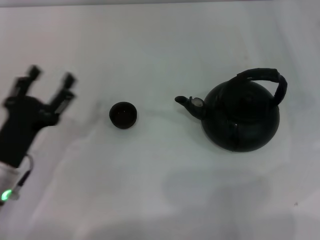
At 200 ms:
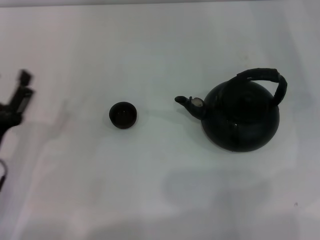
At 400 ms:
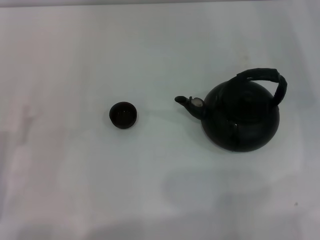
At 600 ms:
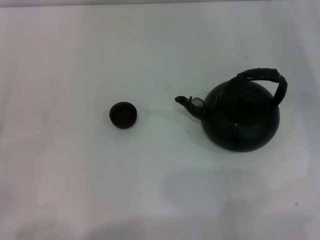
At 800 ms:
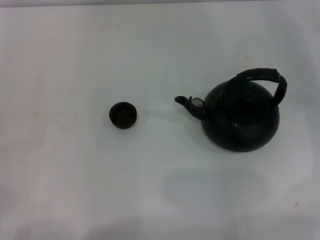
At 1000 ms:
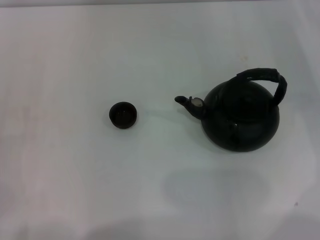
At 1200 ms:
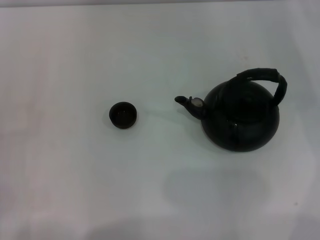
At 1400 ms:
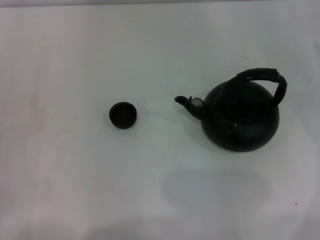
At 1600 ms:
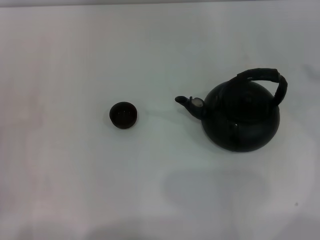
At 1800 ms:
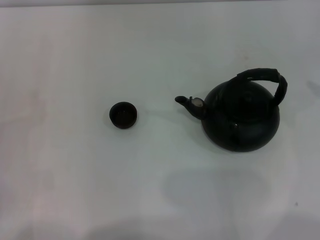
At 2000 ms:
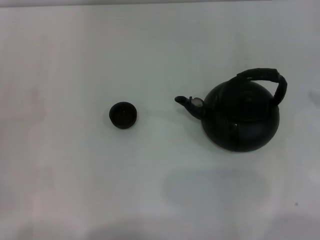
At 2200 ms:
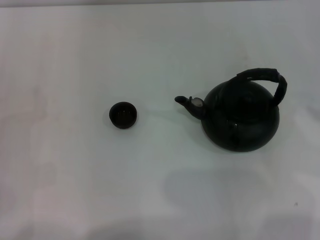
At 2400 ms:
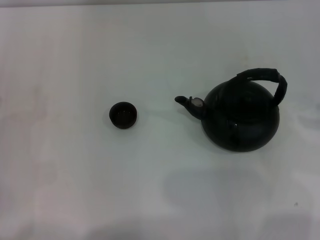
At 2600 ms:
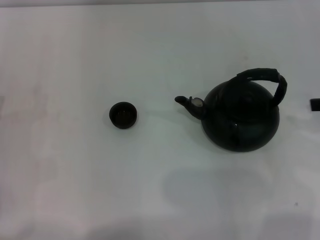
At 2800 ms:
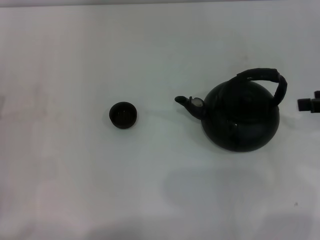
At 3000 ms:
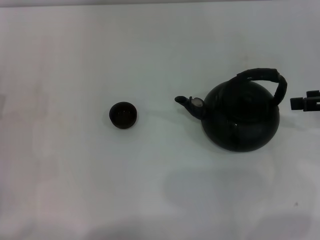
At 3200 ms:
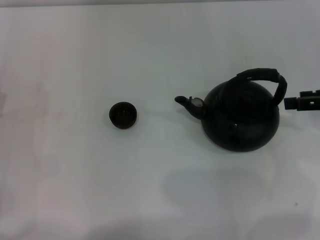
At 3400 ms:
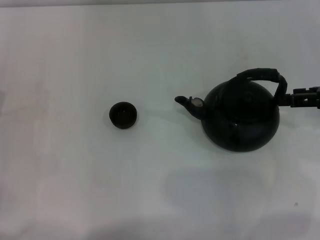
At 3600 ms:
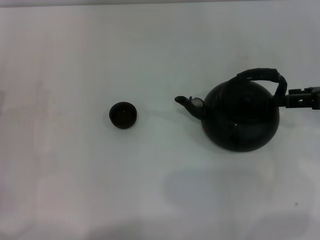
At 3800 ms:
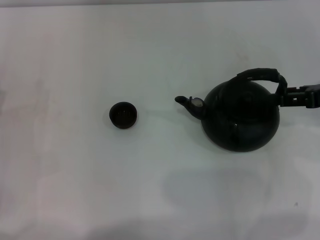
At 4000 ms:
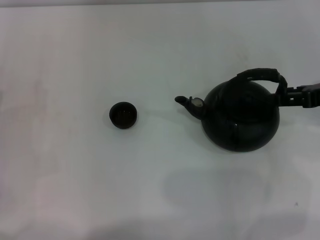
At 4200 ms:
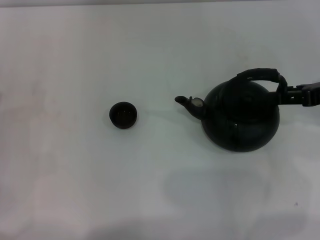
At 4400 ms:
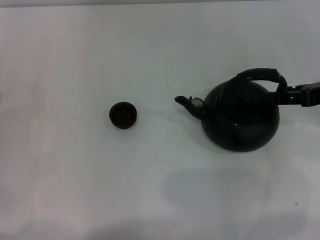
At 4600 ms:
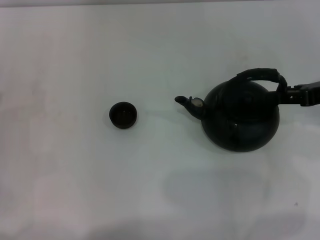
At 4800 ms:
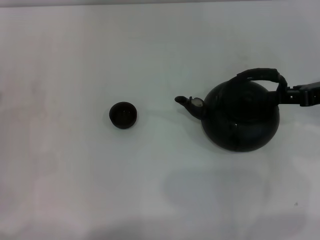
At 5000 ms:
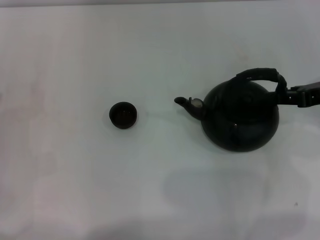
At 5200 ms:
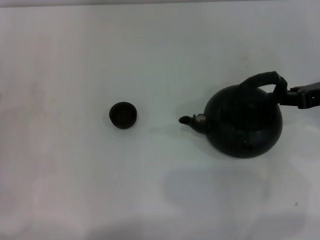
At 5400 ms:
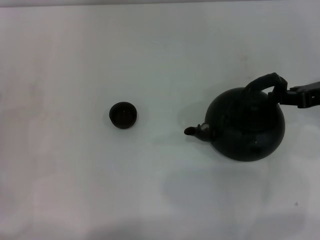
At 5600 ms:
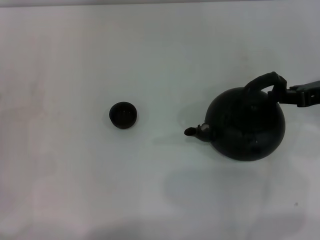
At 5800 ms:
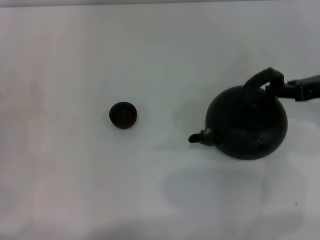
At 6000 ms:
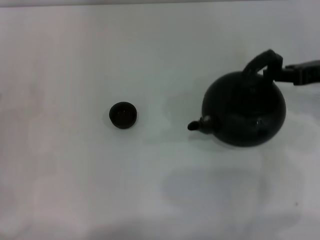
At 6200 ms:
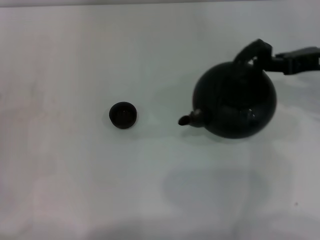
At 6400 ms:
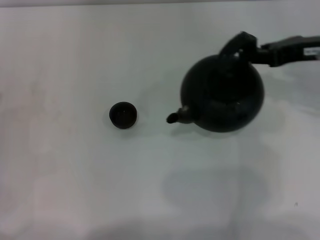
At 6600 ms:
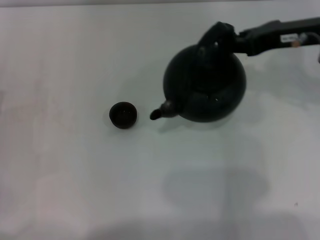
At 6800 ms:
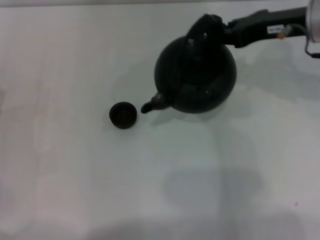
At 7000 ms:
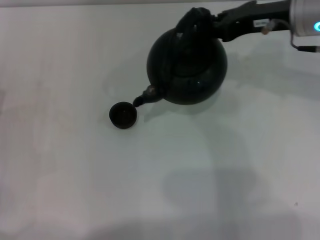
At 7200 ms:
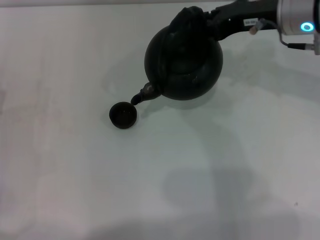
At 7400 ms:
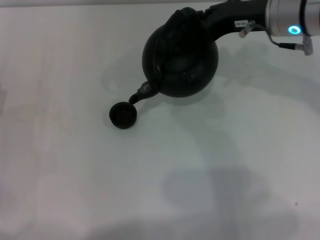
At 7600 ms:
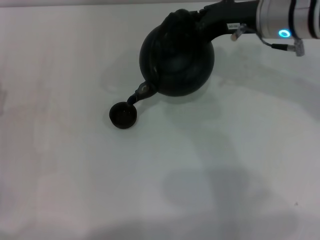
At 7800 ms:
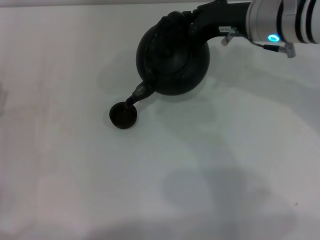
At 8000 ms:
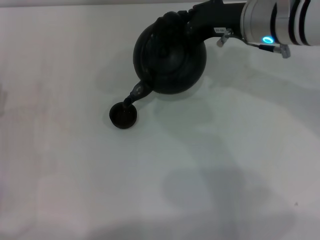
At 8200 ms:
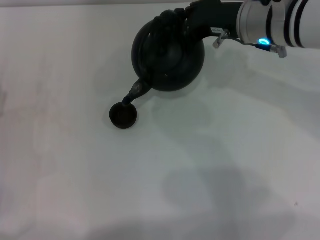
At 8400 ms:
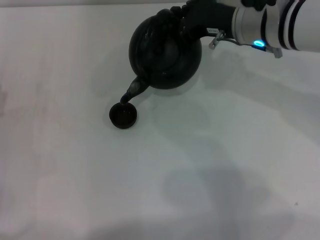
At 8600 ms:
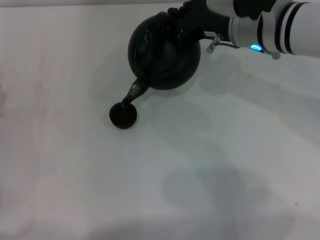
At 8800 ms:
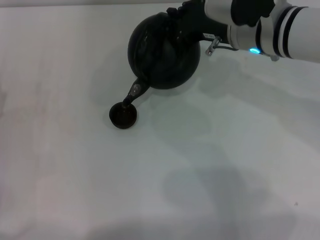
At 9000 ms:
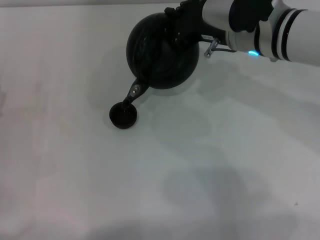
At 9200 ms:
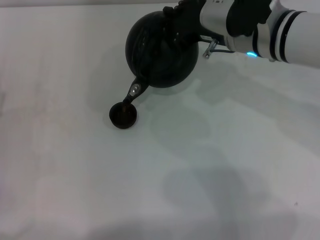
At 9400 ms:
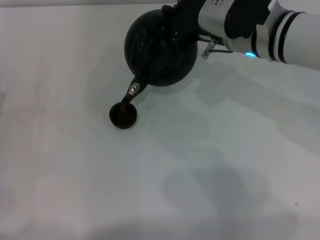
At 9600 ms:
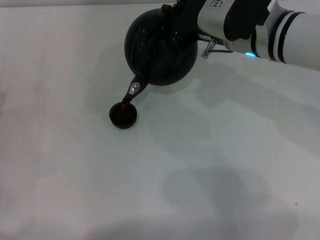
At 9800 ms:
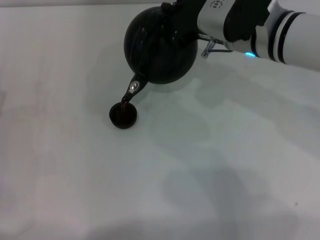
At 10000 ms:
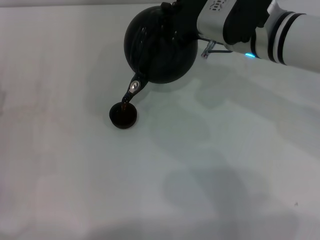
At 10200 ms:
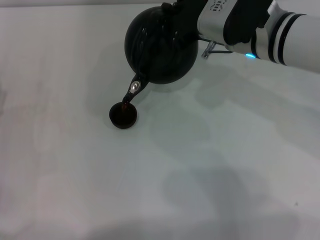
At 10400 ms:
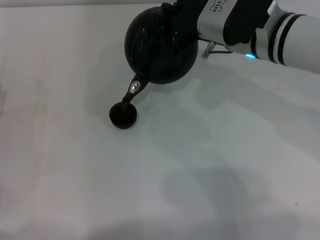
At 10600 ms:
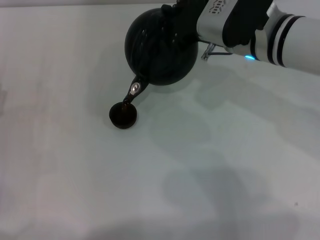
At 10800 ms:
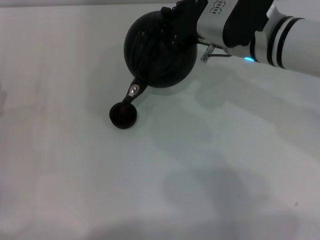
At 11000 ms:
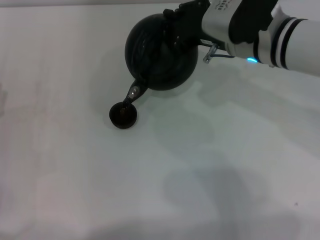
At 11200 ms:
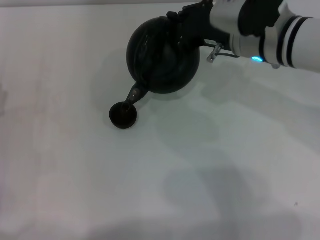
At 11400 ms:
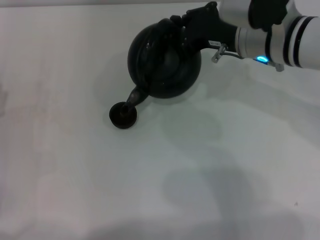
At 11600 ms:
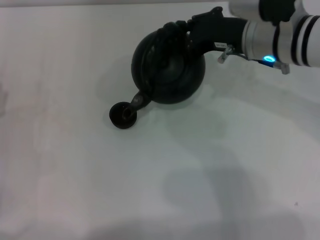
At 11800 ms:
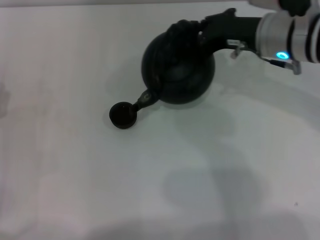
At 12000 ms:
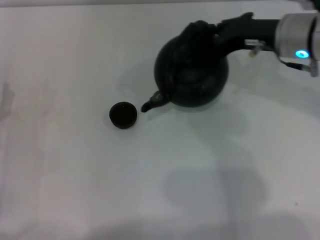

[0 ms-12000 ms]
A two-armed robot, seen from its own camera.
Task of the whole recording: Grasp the handle of the teapot with one hand and pour tea into the teacup.
Step, 0 ms to 6400 ms: Pick up the teapot with the right gripper.
Step, 6600 ms to 11800 ms: Pour tea into the teacup with the right gripper.
0 ms to 1600 ms: The left gripper shifts some 10 cm to the left.
4400 ms to 6000 ms: The right gripper closes its fingers.
6000 ms to 7600 ms: The right gripper is displaced to the left and forward by about 15 cm.
7600 ms to 9000 ms: There are only small adjustments of the grippers.
9000 ms to 10400 ms: The grippers stay close to where they were, moving slightly.
10400 ms to 12000 ms: The right gripper moves to the right, some 5 cm.

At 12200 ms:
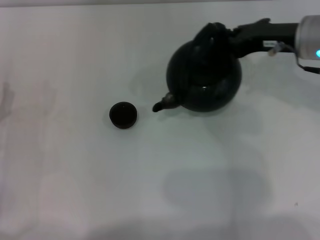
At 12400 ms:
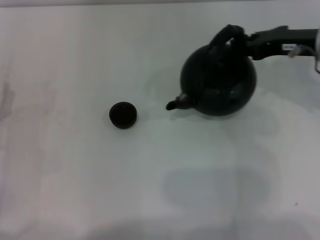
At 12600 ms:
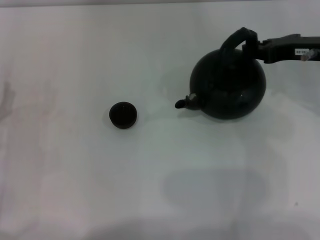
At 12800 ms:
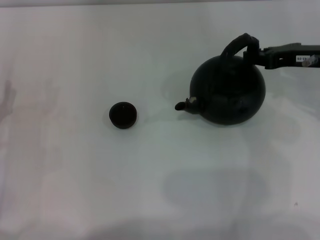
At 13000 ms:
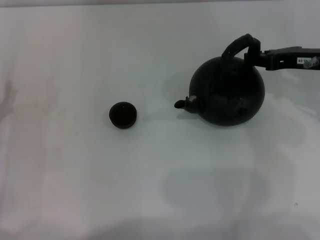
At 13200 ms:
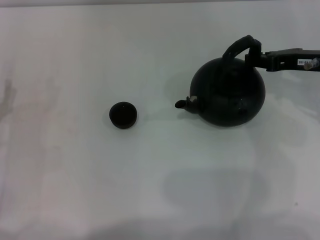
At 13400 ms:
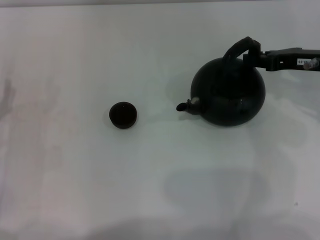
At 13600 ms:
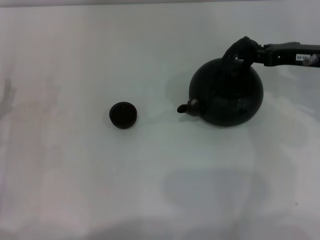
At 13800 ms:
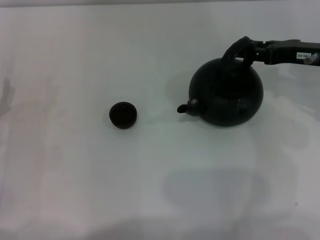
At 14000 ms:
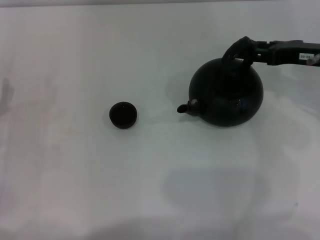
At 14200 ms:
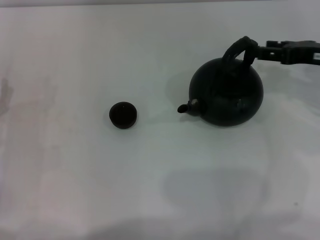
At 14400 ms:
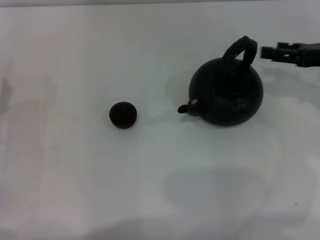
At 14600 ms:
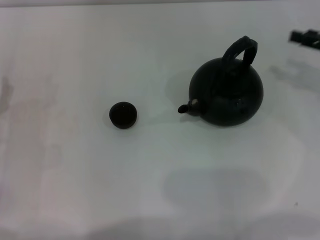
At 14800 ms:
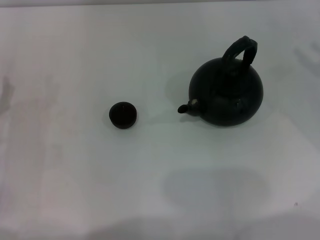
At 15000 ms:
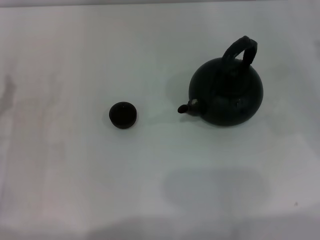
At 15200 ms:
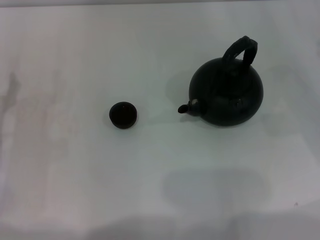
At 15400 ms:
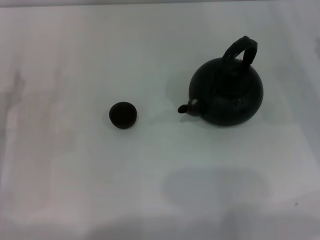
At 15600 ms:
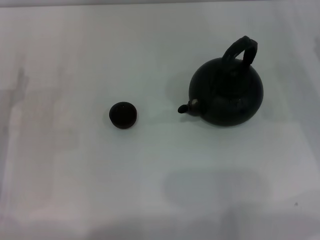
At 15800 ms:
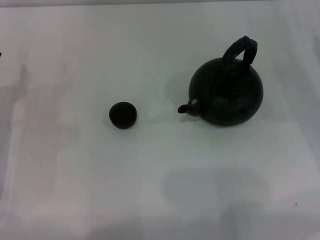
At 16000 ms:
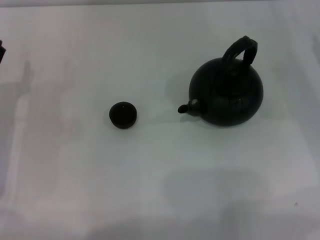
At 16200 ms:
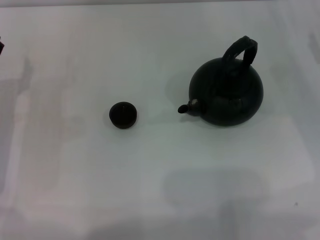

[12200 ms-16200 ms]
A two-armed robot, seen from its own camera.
Task of the whole recording: Grasp the handle of the teapot with one hand and pour tea into the teacup.
Step, 12200 ms to 14200 ms: Put down the teapot with the right gripper.
12200 ms to 13600 ms: The right gripper goes some 5 cm to the right.
13600 ms to 14800 ms: The right gripper moves to the right, about 10 cm, and opens up.
